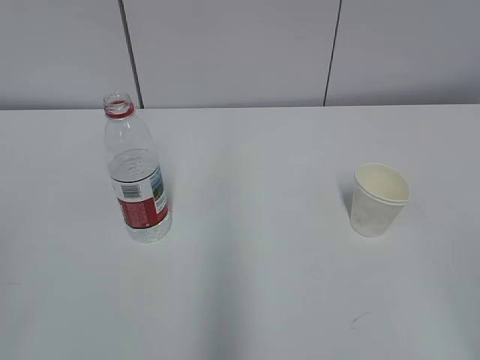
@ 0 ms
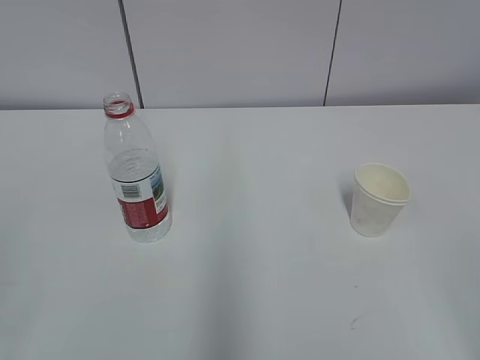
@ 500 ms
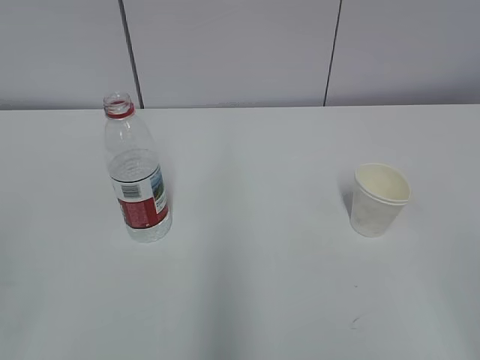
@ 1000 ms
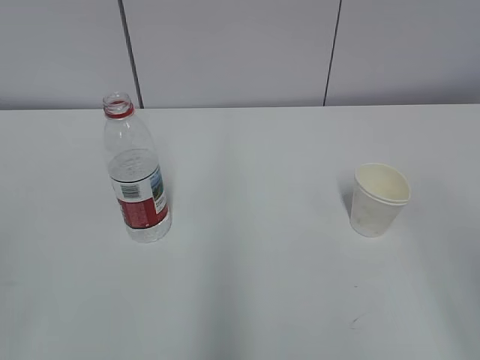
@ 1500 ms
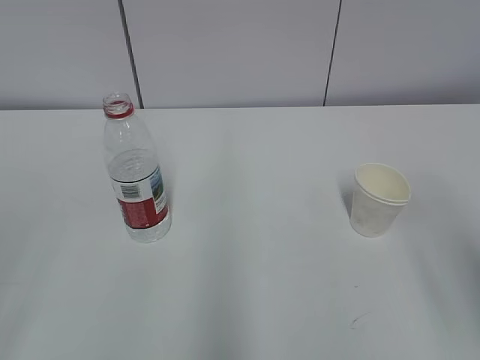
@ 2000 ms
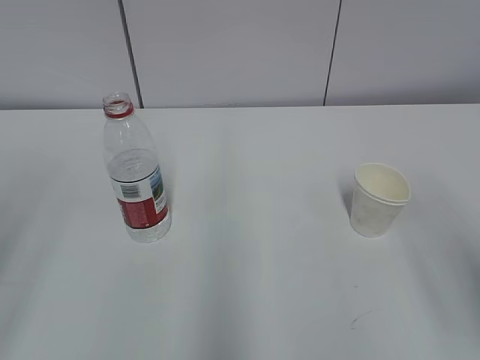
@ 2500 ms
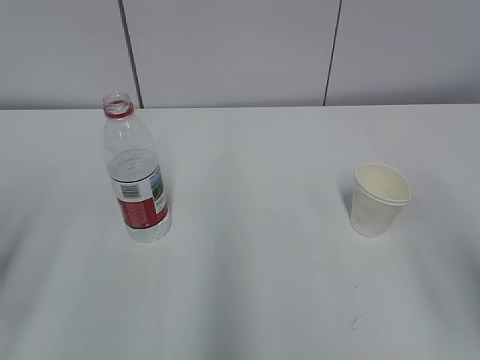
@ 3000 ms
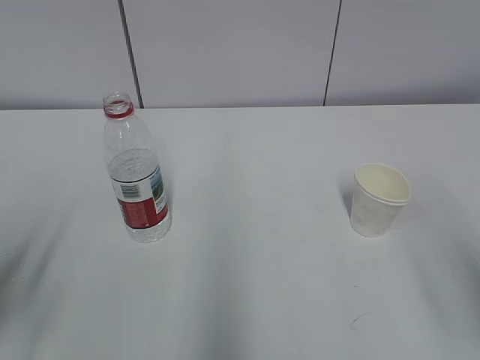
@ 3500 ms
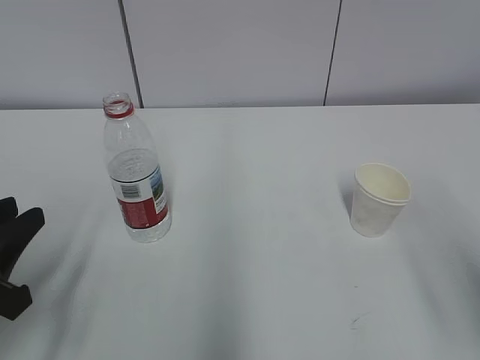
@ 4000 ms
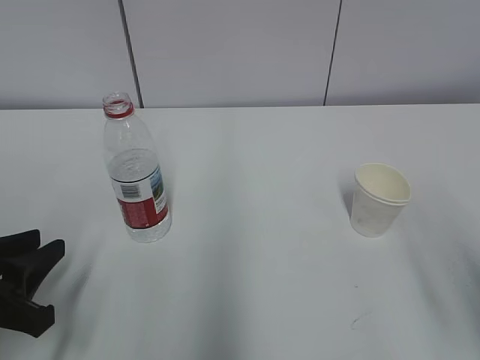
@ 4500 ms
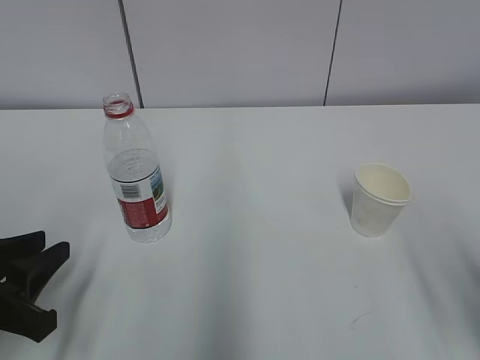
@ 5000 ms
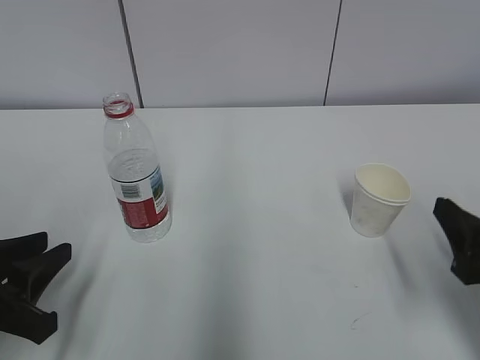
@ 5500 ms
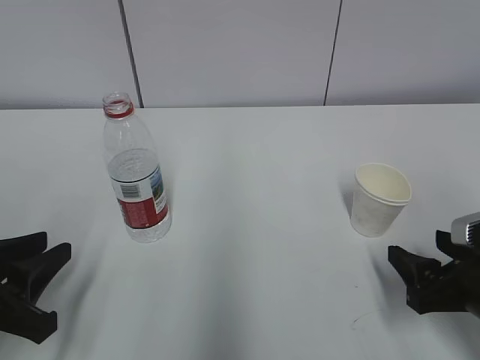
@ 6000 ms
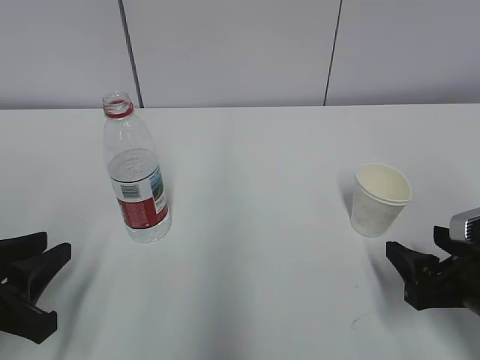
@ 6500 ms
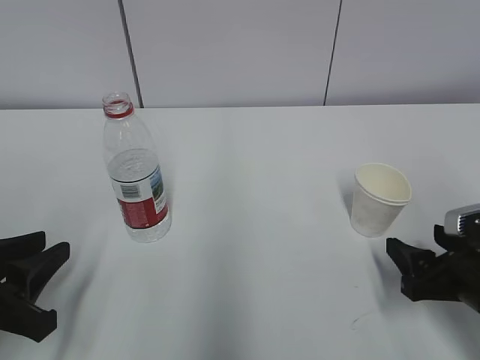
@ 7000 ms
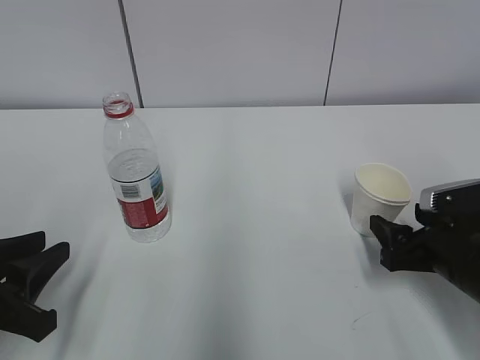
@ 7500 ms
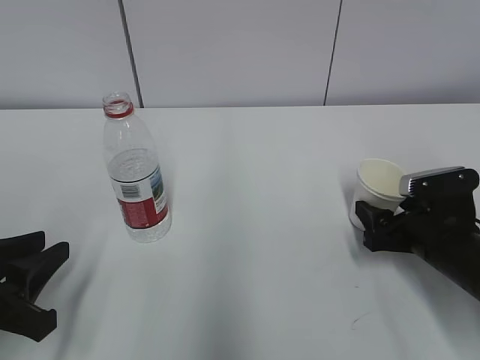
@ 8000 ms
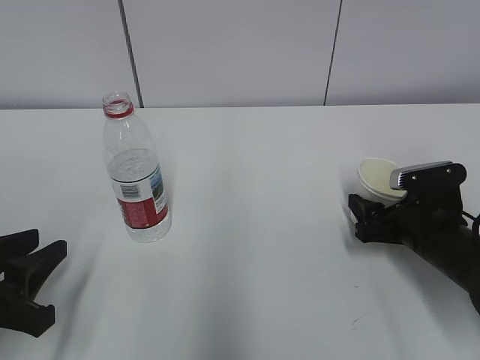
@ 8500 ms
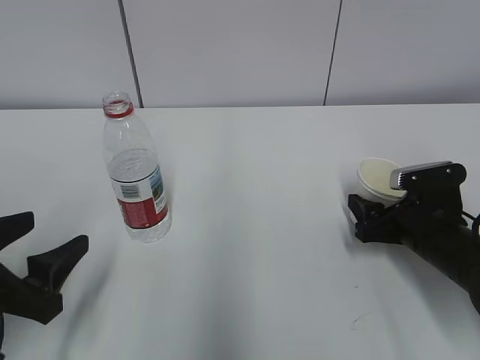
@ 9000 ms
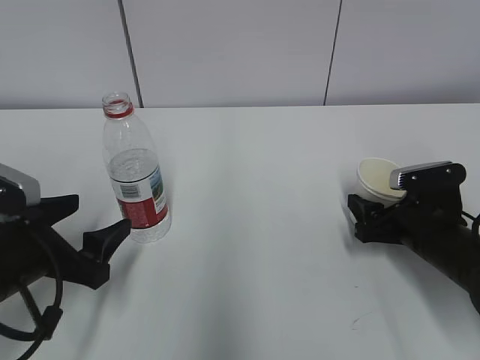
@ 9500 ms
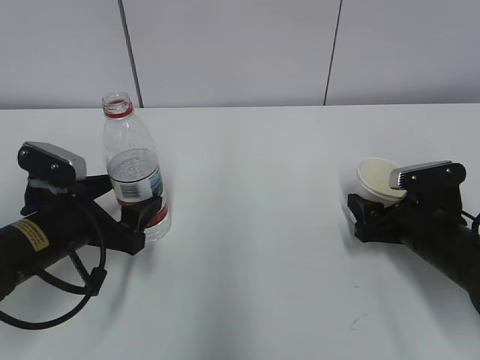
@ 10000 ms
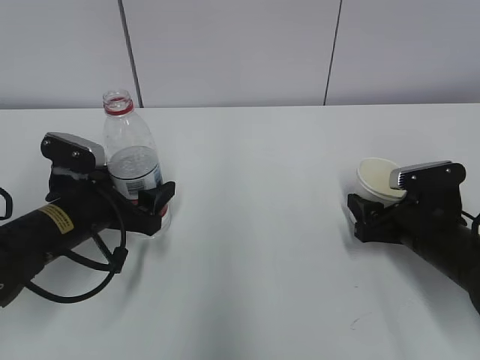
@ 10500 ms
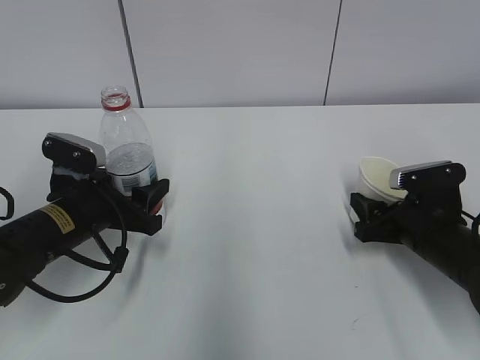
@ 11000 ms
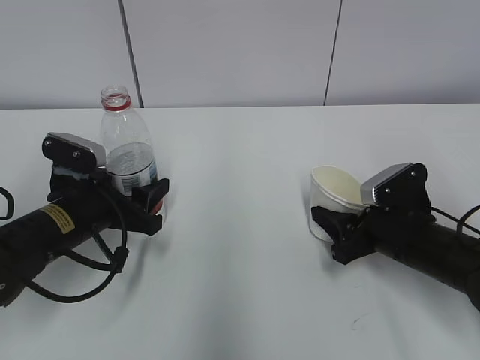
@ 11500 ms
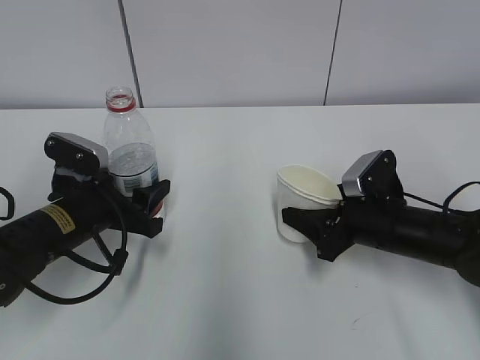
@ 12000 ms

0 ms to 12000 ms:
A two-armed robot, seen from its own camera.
Step, 0 ms to 7000 ms: Grab the paper cup with the right hand.
2000 ms to 4000 ms: The left gripper is displaced forward and downward by roughly 20 cm.
4000 ms to 6000 ms: The right gripper travels downward and forward by approximately 20 cm.
6000 ms to 8000 ms: The right gripper goes roughly 10 cm forward.
8000 ms to 10000 ms: The left gripper heads forward, covering about 10 cm, and opens up.
10000 ms to 12000 ms: The left gripper closes up; the right gripper ends up roughly 5 cm from where it was, and closes up.

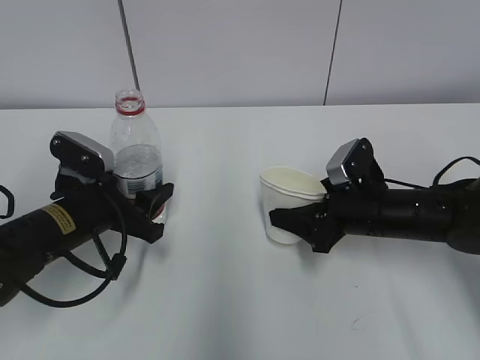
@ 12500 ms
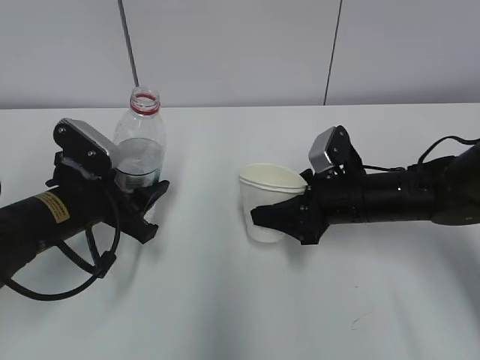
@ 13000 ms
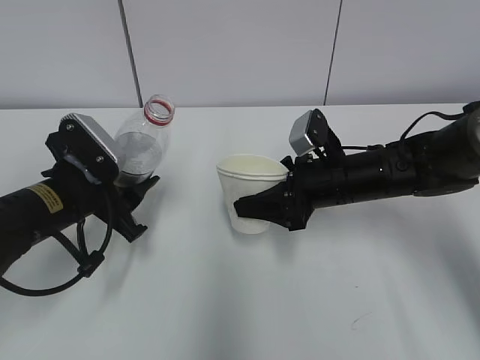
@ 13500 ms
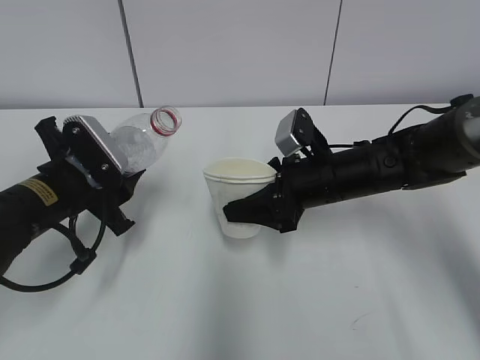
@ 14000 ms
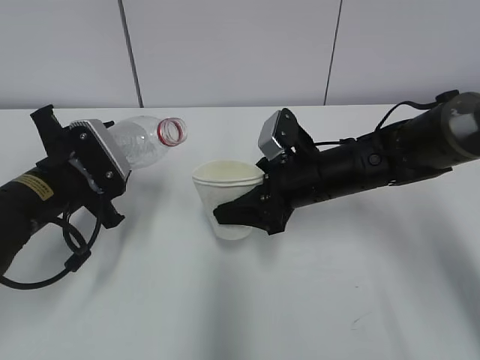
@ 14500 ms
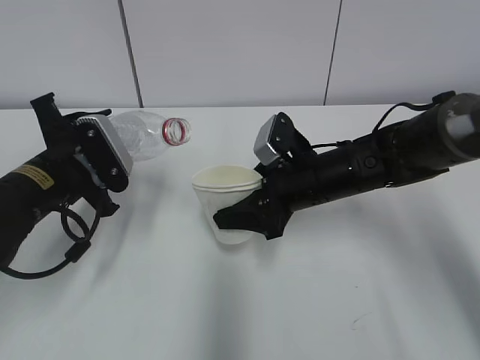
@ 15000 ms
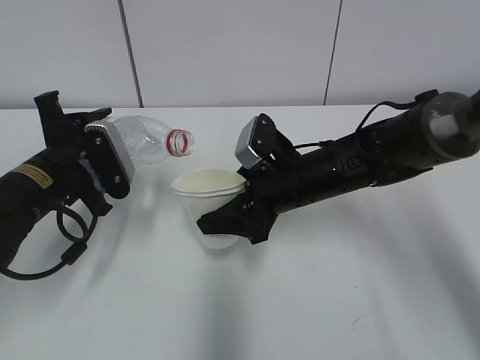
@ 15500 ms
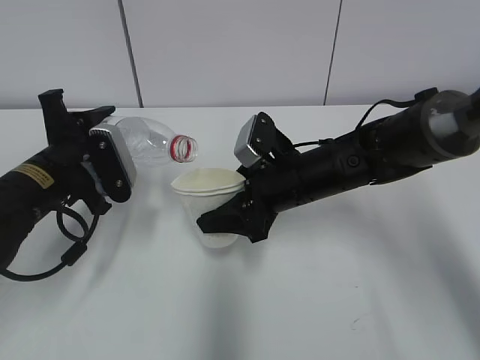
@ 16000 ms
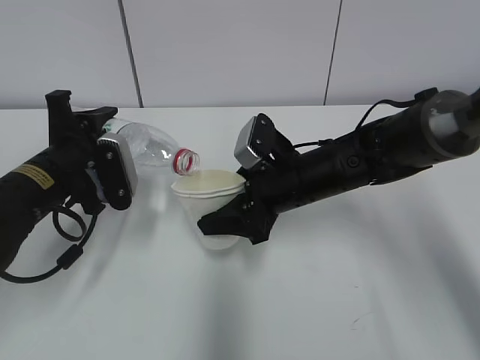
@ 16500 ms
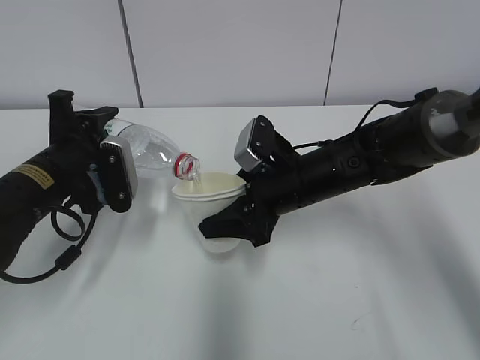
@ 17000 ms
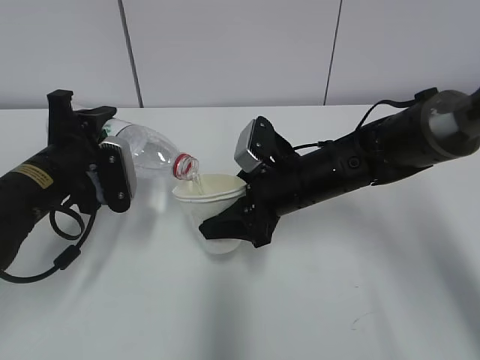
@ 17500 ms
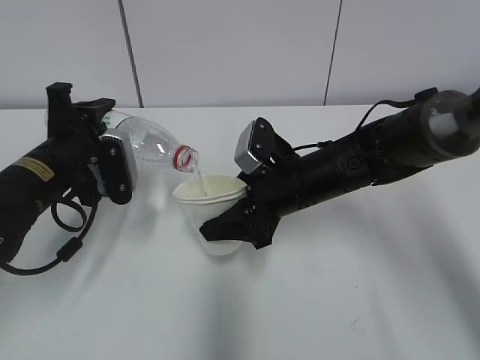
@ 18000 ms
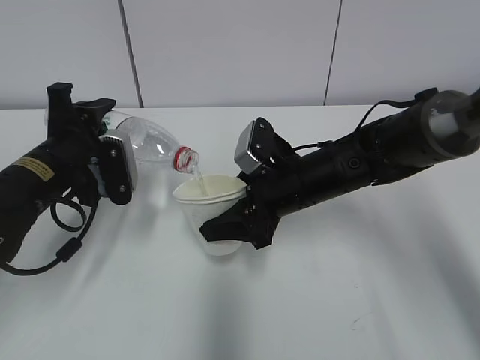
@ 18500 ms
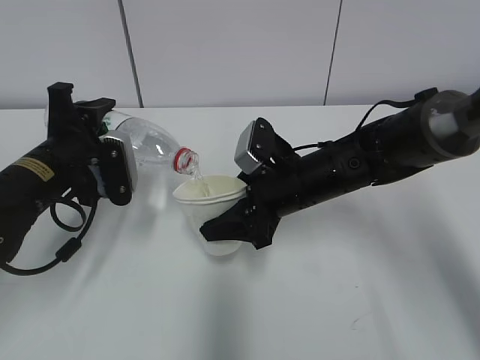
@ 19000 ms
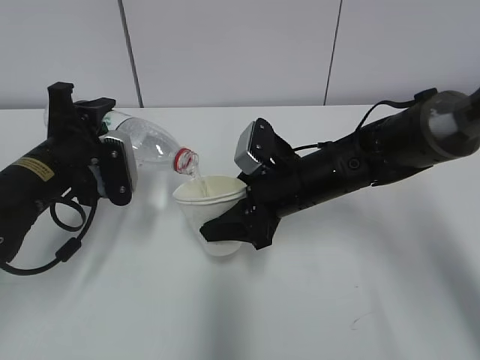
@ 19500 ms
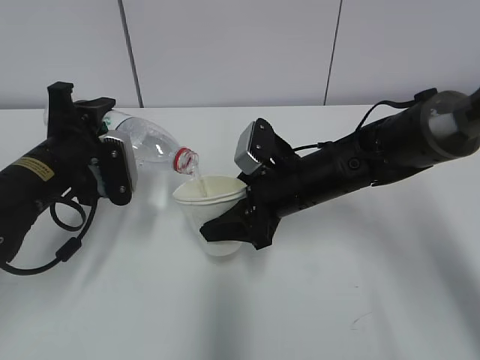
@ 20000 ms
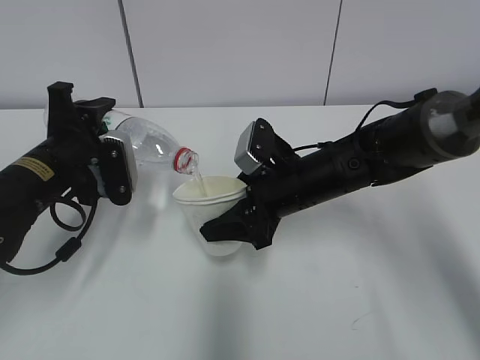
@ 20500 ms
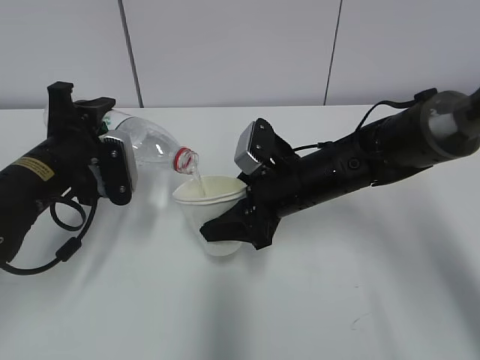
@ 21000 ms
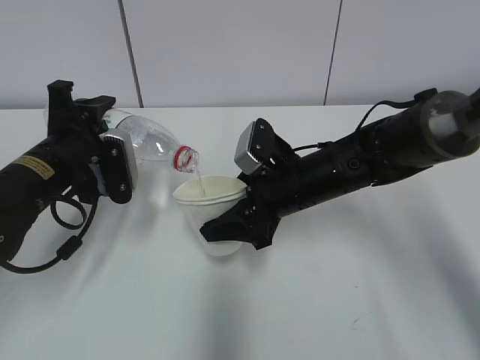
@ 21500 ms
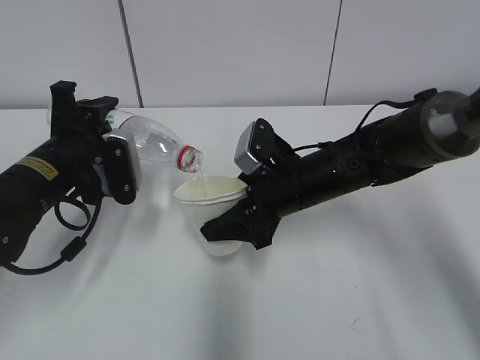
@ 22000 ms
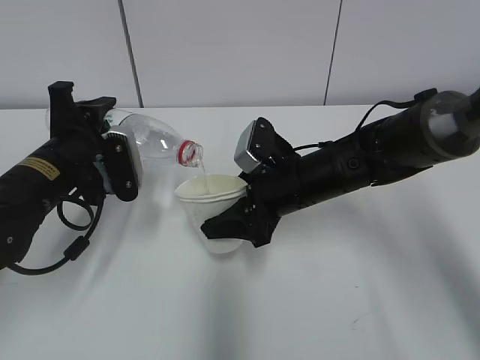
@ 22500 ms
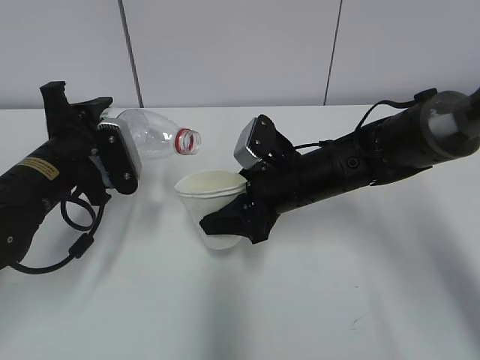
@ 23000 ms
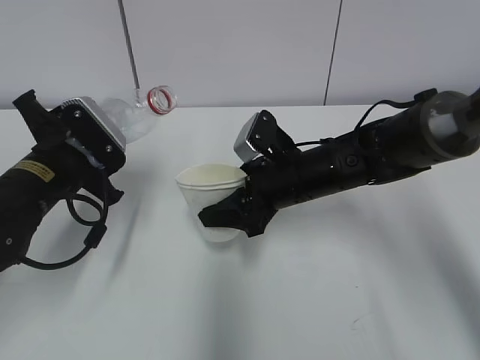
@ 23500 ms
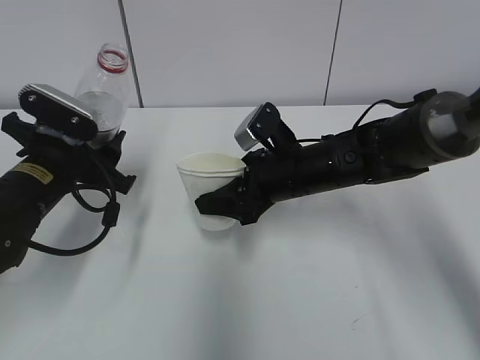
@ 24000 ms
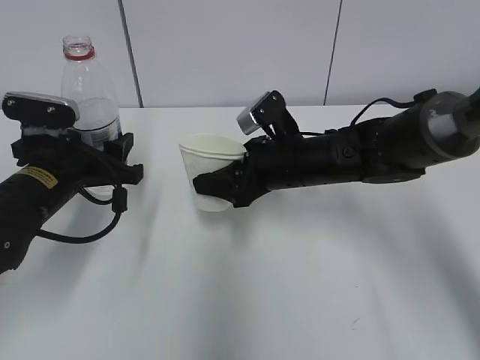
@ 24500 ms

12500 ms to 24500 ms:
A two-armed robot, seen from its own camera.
Step, 14000 ms to 19000 ms: Fill water with the right hand.
Step, 14000 ms to 19000 ms: Pour water with the left hand.
12500 ms to 14500 ms: The right gripper shifts roughly 5 cm to the left.
16500 ms to 18500 ms: The grippers make only small movements.
18500 ms to 22500 ms: The two grippers keep their place.

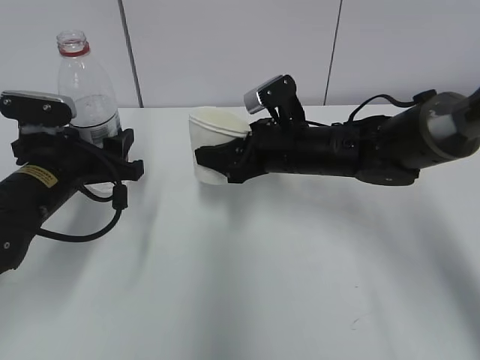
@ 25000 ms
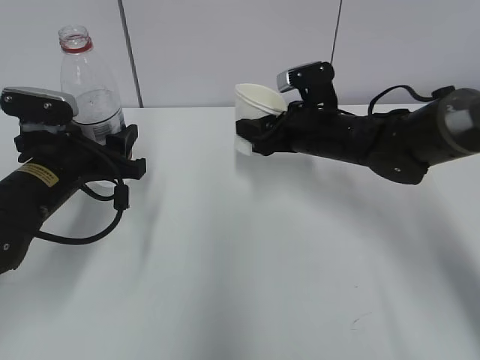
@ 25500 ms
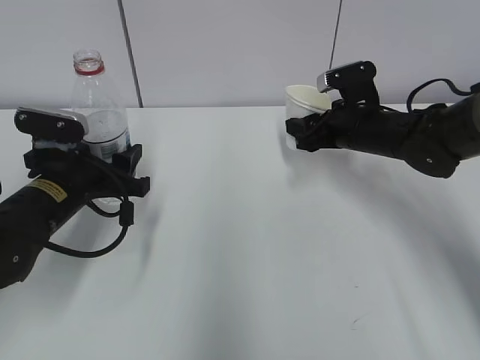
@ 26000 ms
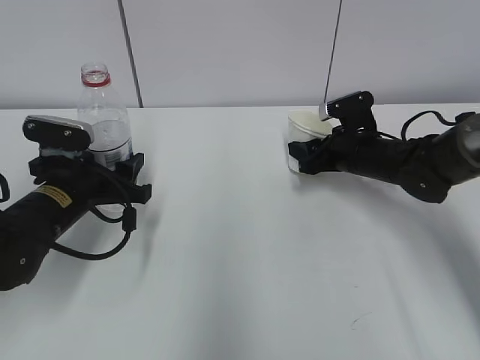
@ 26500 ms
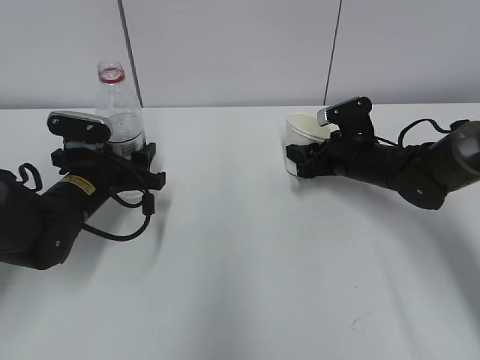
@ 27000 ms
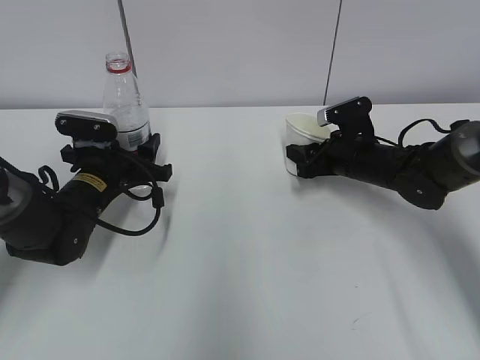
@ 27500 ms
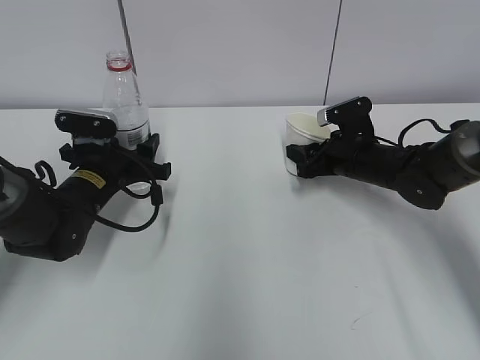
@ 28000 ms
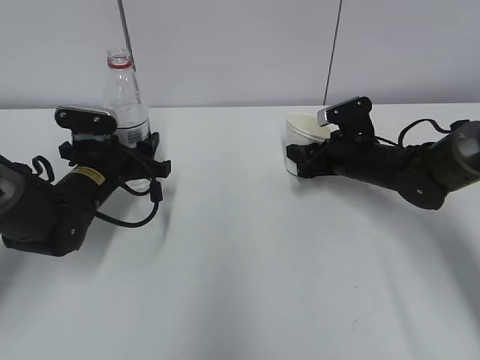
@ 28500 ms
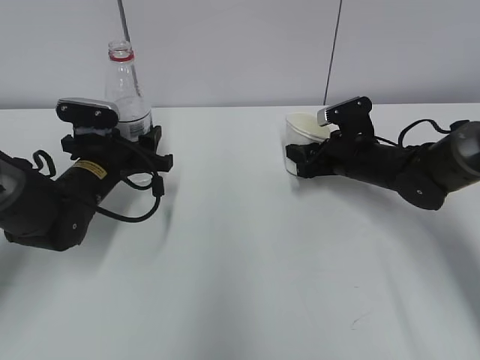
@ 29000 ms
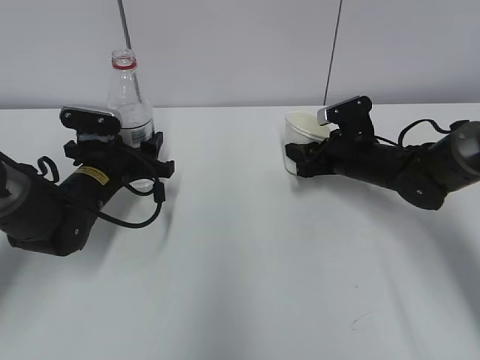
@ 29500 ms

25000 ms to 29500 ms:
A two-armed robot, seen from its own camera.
Step, 26000 ms to 27500 ms: Place the water bottle with the left hand.
25000 ms to 27000 ms: The left gripper moves downward, approximately 5 cm; the right gripper moves to the right and downward, about 15 cm.
27000 ms to 29500 ms: The grippers stay close to where they were, moving slightly.
